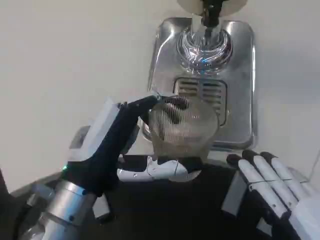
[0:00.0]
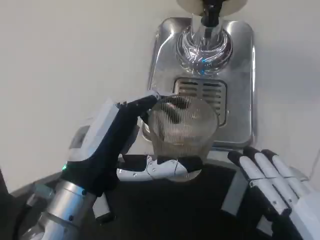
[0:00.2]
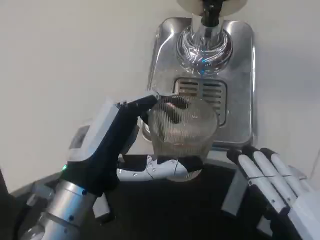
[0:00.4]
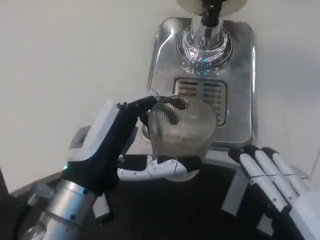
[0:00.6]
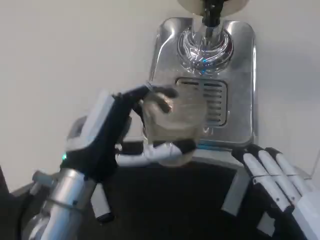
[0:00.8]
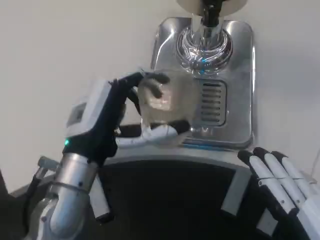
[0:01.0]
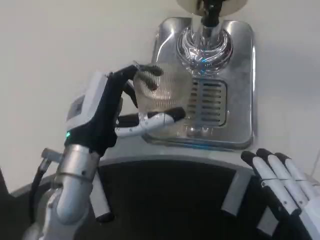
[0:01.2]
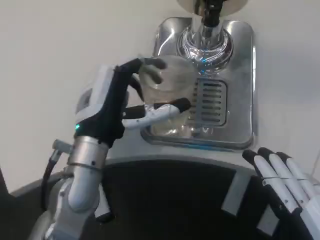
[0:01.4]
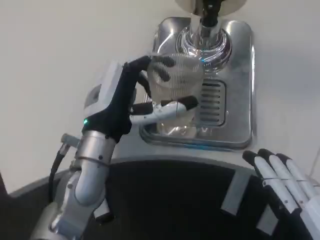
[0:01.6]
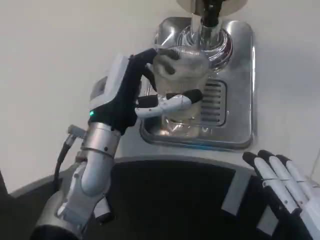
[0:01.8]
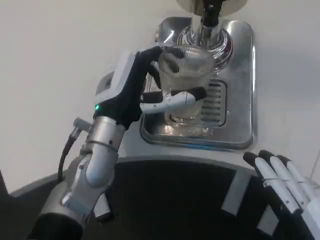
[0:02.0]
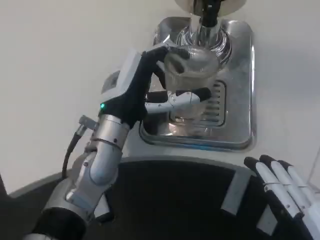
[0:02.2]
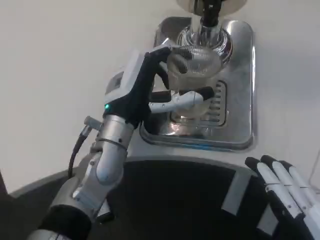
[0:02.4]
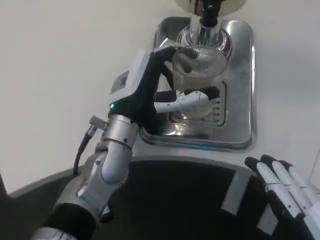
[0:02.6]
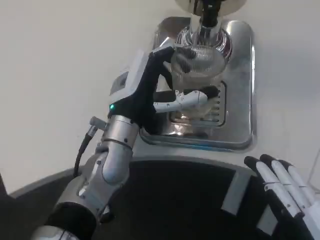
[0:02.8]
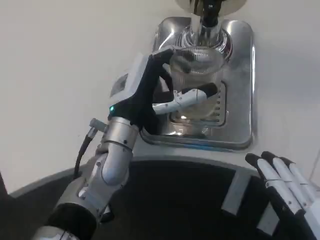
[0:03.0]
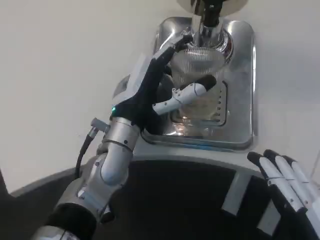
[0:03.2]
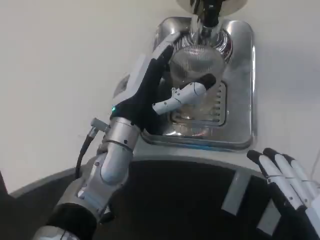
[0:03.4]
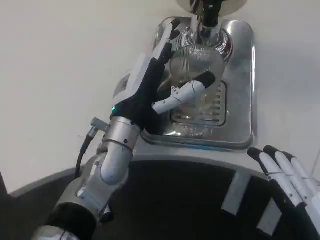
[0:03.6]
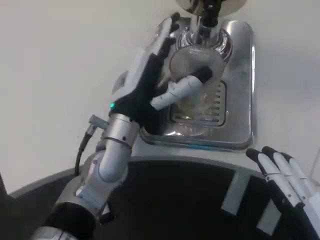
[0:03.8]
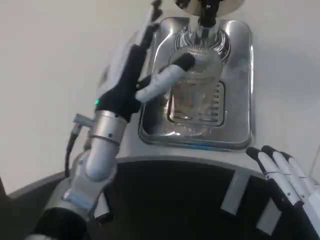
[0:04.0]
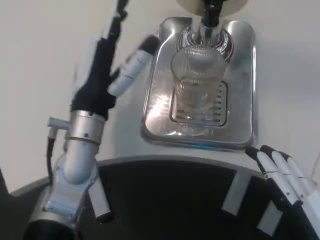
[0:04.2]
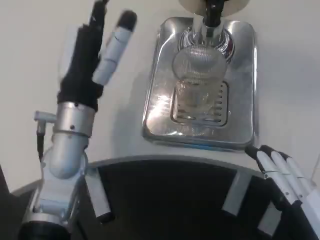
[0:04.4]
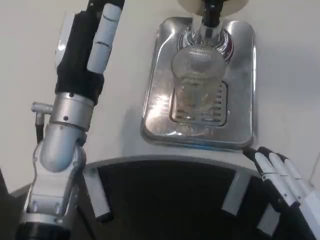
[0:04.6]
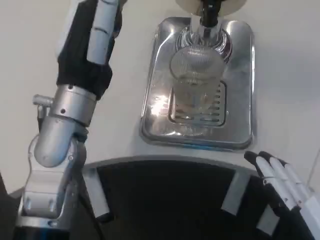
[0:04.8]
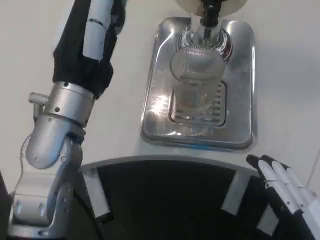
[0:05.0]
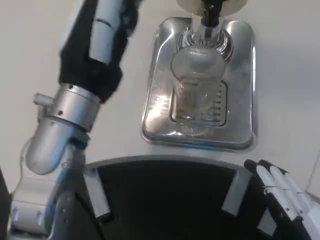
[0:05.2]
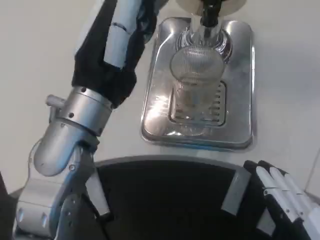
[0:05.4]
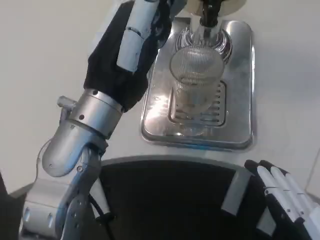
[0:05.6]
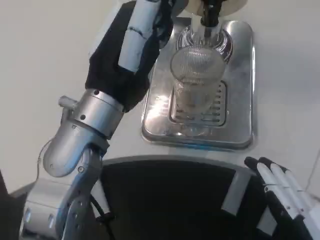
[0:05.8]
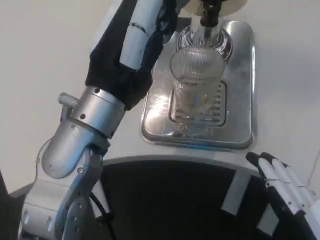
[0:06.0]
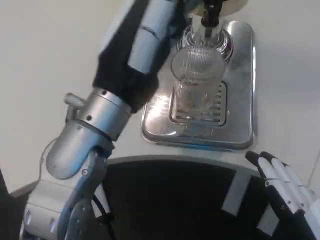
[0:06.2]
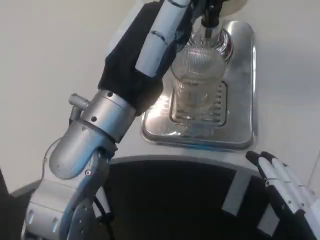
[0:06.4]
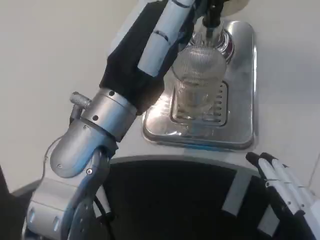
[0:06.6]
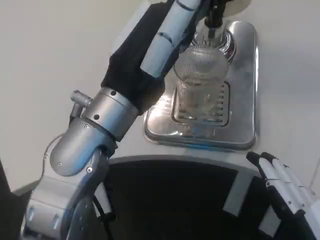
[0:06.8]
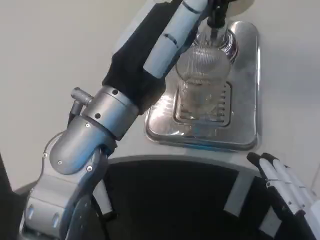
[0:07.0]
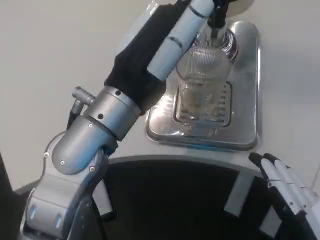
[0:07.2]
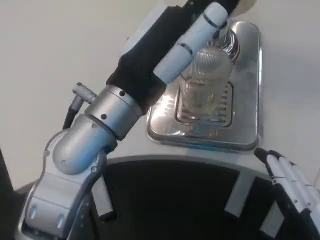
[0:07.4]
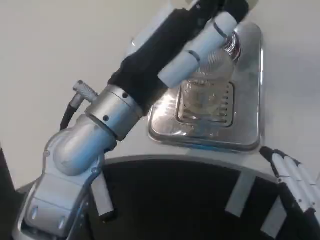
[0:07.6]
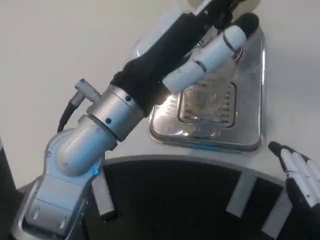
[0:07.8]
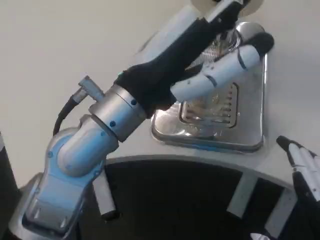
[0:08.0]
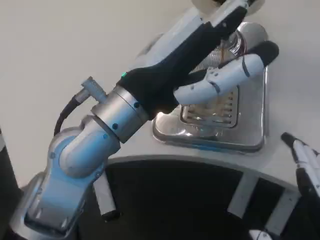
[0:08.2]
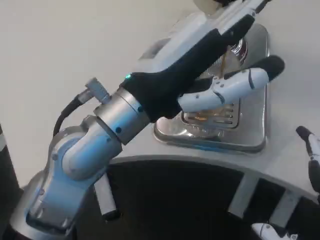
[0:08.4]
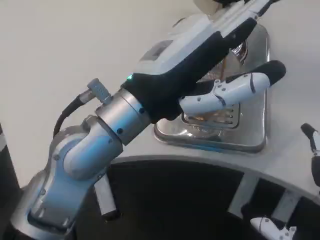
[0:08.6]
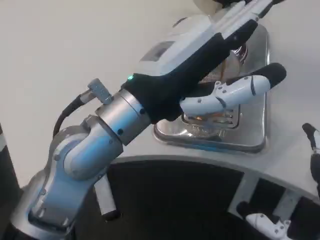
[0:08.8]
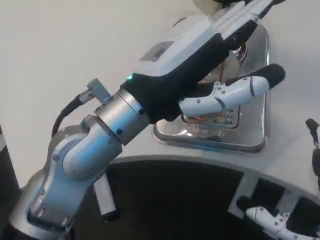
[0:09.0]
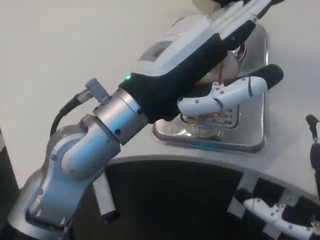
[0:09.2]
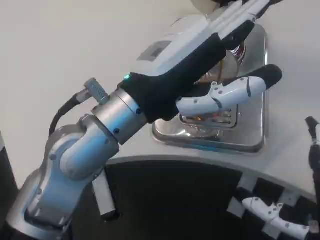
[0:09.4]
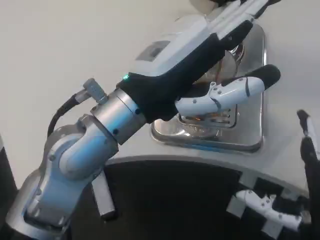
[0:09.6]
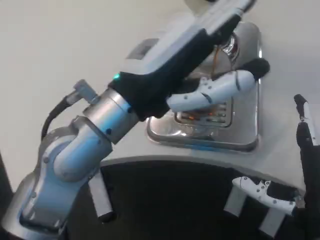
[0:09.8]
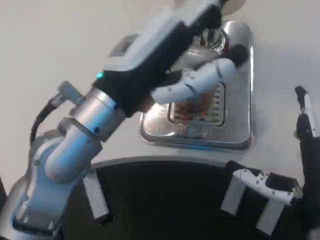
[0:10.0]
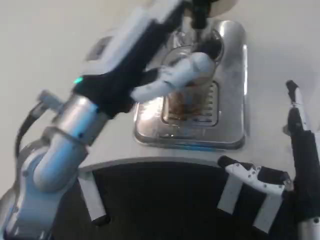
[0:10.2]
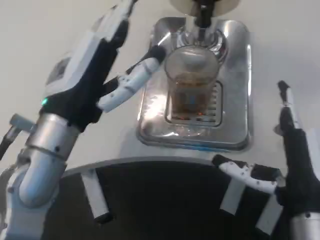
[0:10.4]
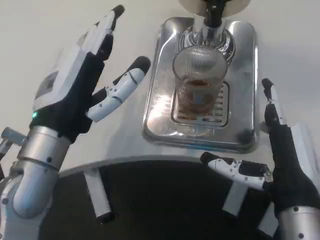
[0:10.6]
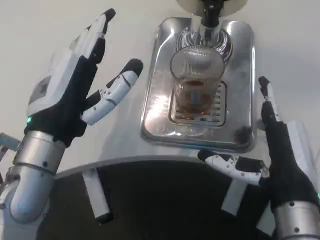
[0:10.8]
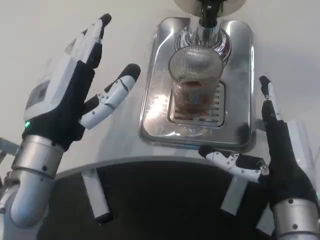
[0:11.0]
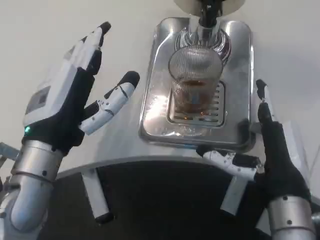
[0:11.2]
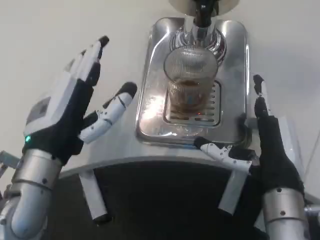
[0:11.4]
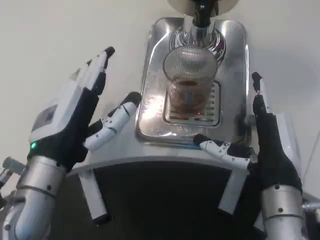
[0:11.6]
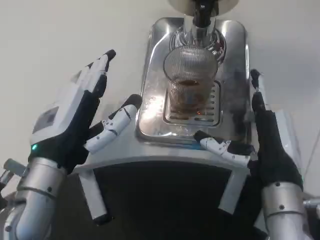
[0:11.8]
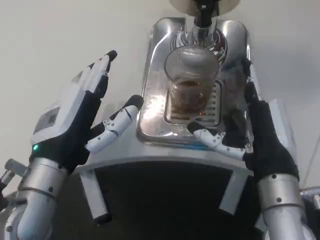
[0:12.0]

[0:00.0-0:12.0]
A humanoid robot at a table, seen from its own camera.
Task of the whole recording: Grasp the cup under the faucet to collect the drink, then remove the cup.
0.0 to 1.6 s: The left hand goes roughly 10 cm forward.
1.6 to 3.0 s: There are only small adjustments of the hands.
3.0 to 4.4 s: The left hand shifts by roughly 5 cm.
4.4 to 6.0 s: The left hand goes about 10 cm upward and backward.
7.6 to 9.0 s: The right hand moves approximately 5 cm.
9.0 to 10.4 s: The left hand moves to the left, some 5 cm. The right hand is displaced forward by roughly 10 cm.
10.4 to 12.0 s: The right hand heads forward, covering approximately 5 cm.

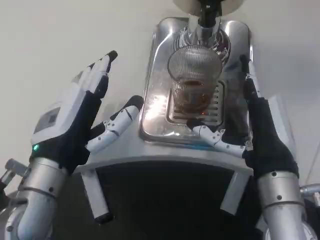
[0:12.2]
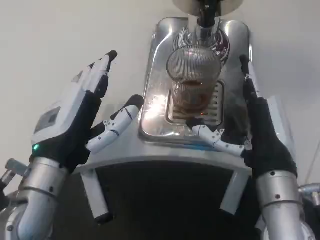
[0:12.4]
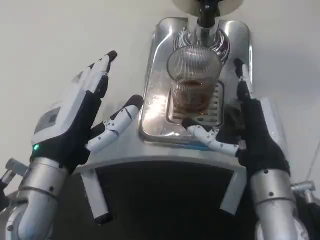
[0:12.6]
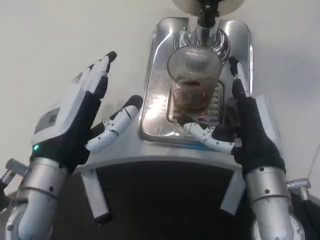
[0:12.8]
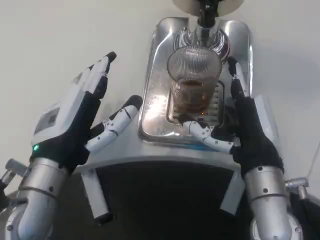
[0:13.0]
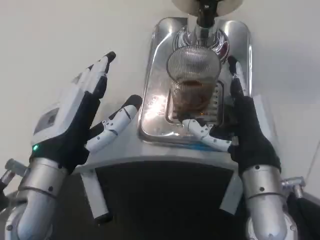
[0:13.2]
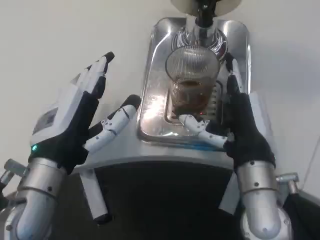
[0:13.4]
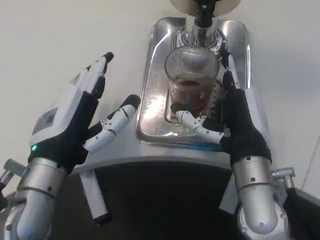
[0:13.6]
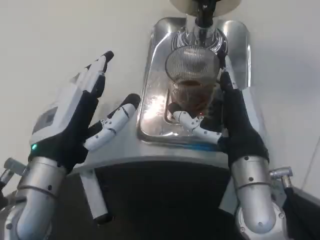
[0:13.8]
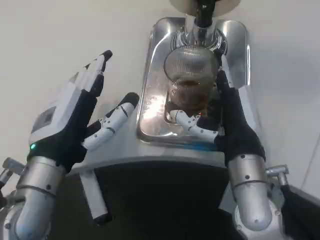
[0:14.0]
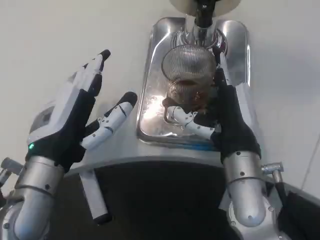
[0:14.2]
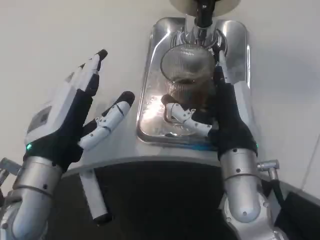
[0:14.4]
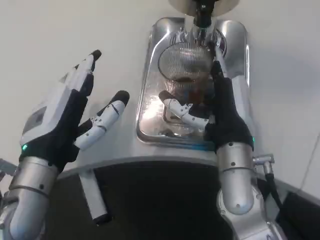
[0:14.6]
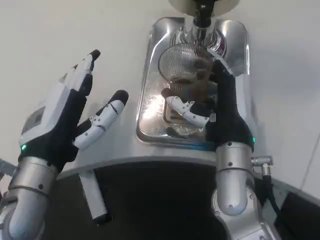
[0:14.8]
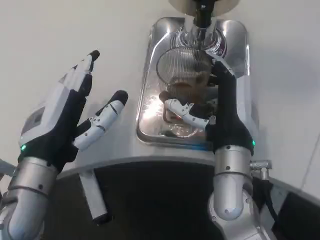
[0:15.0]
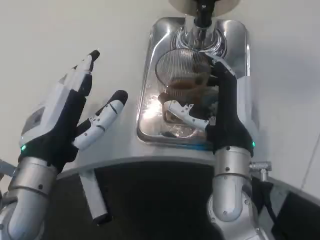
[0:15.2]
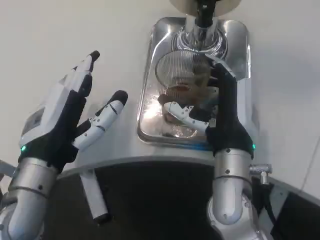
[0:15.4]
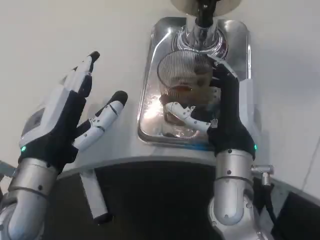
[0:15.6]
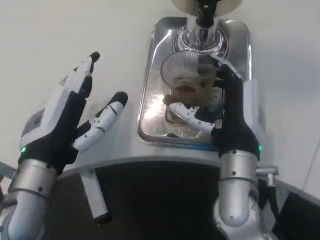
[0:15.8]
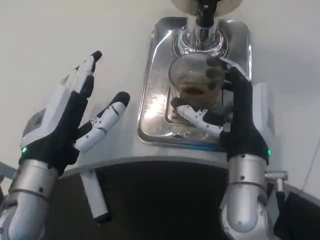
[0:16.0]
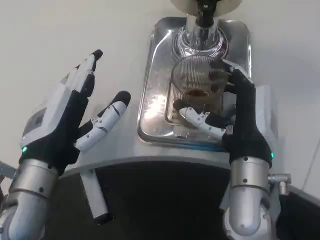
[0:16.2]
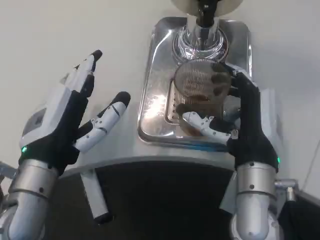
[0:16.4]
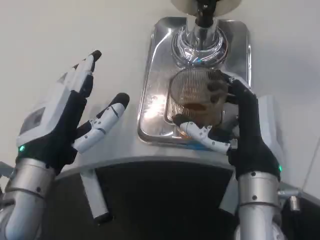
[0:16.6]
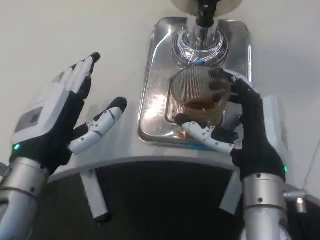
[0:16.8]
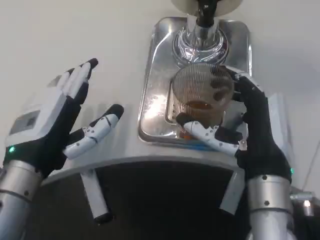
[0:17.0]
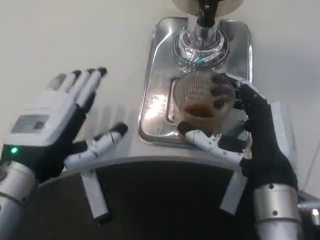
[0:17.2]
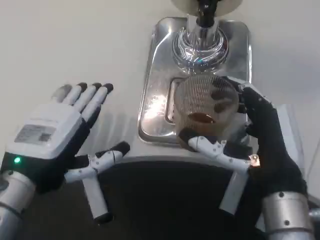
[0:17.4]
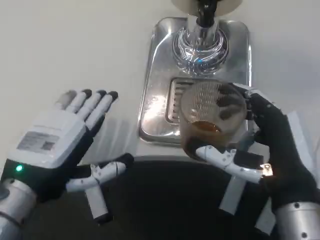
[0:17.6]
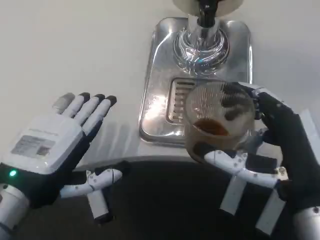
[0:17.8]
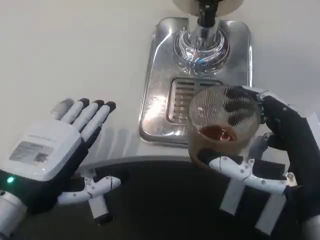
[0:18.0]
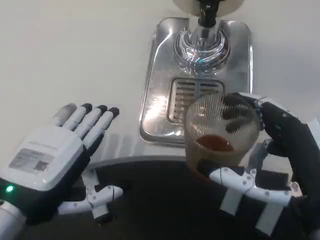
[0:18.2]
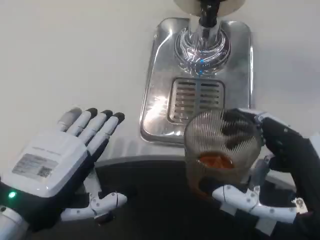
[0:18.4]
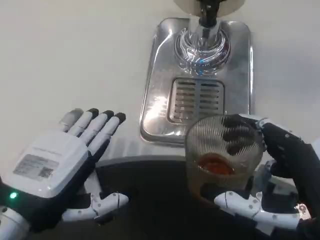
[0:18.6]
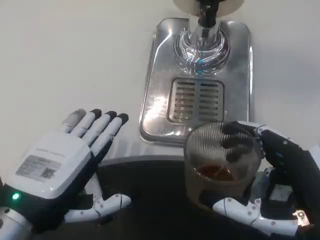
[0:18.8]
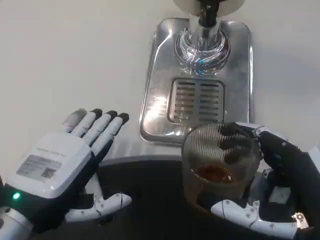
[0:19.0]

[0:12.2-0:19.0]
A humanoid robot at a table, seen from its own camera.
Task of the whole recording: Grasp the cup under the faucet to collect the drink, then remove the cup.
16.2 to 17.6 s: The right hand heads backward, covering roughly 10 cm.
17.6 to 19.0 s: The right hand travels backward by some 5 cm.

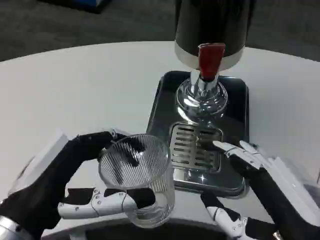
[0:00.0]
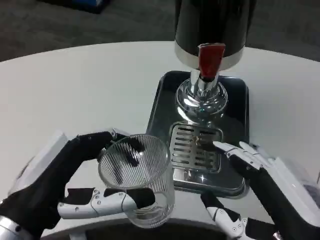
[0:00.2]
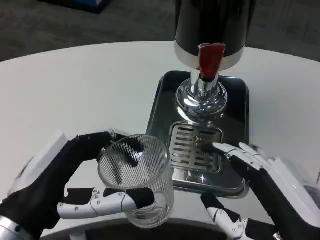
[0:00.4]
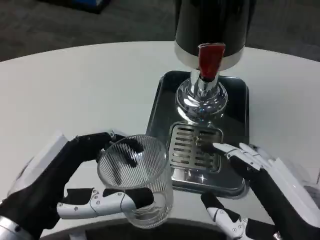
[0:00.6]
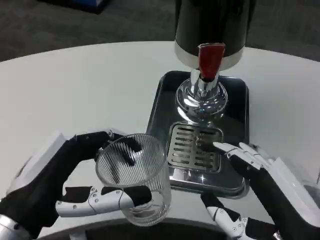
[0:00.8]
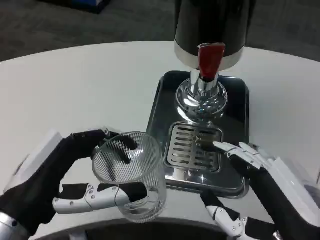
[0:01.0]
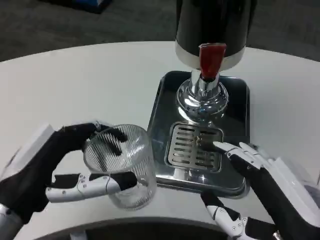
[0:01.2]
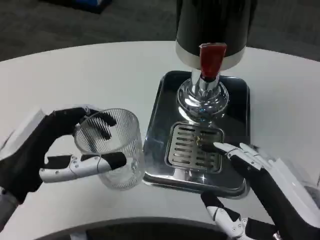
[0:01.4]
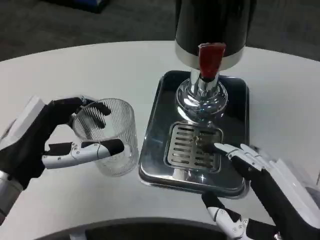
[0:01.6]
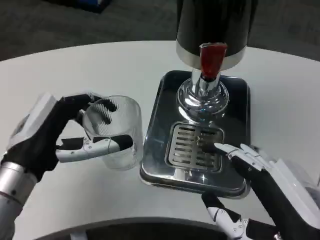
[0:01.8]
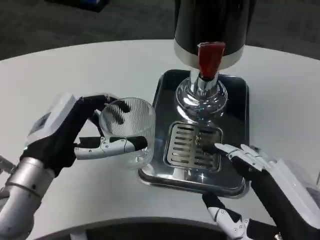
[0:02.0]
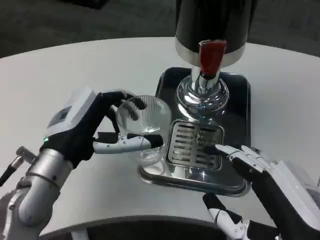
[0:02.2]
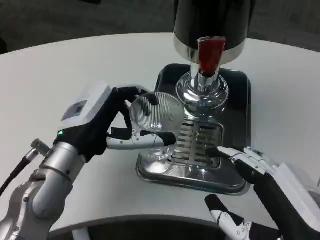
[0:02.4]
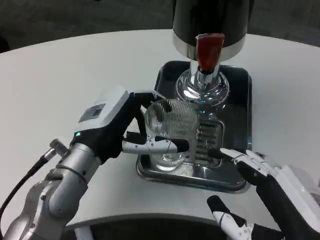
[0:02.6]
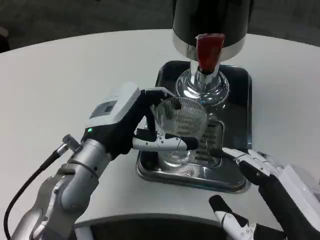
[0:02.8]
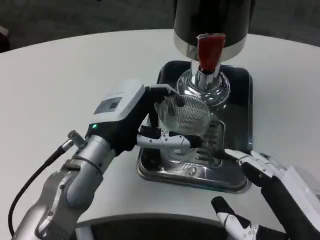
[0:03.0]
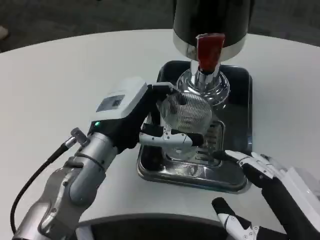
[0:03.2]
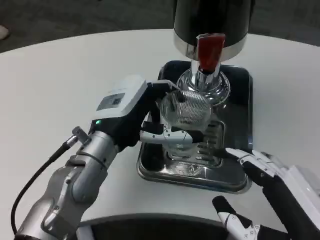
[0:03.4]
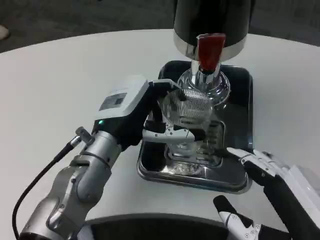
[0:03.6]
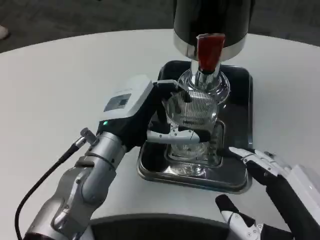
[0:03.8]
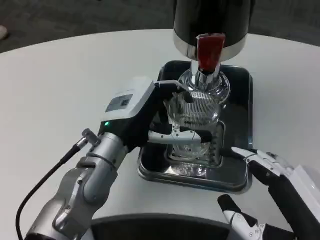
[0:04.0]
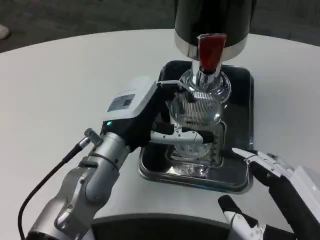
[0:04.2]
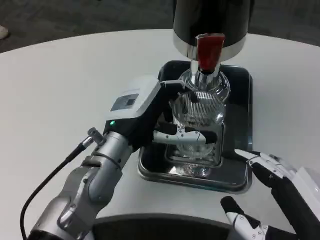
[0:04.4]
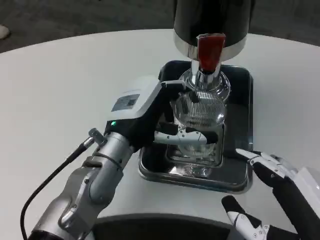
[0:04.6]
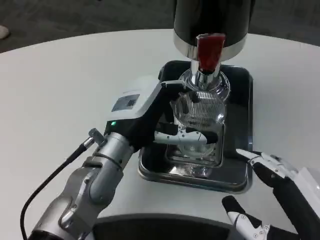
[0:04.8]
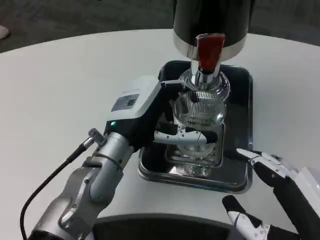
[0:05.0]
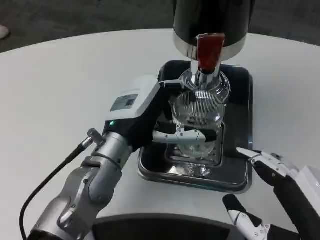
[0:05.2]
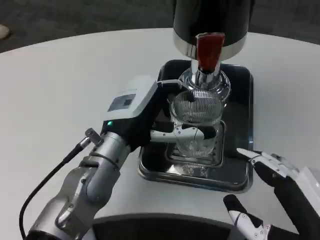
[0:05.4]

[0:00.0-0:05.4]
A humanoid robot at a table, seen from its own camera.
Task of the whole recording: Grasp the cup under the faucet to collect the drink, then remove the cup.
0.0 to 1.4 s: The left hand ends up about 5 cm from where it was.
1.4 to 2.8 s: The left hand travels forward and to the right by about 15 cm.
4.0 to 5.4 s: Both hands stay put.
